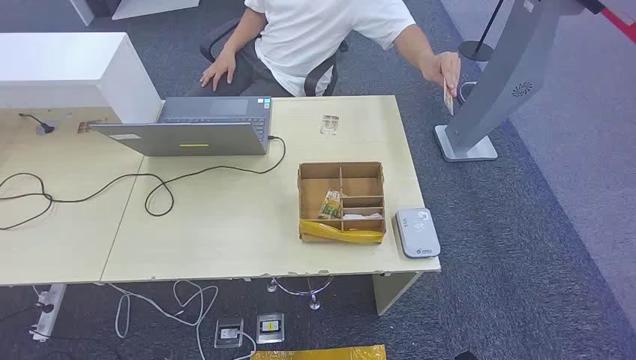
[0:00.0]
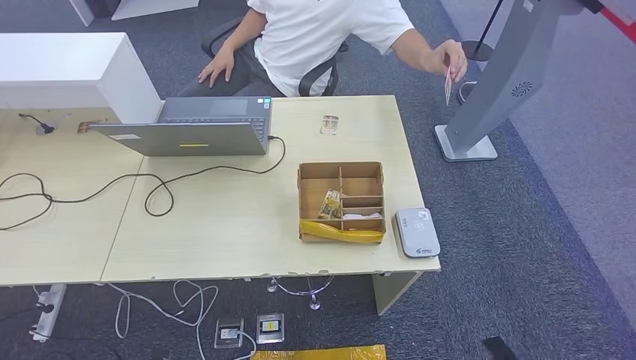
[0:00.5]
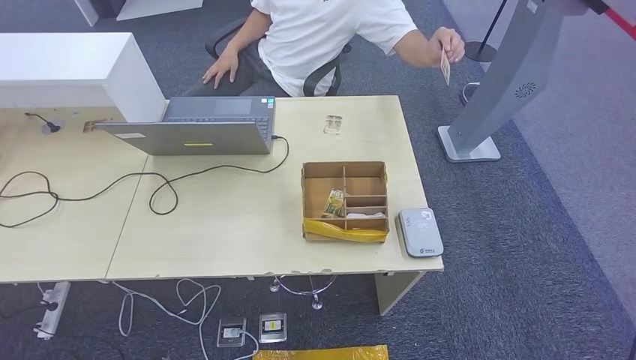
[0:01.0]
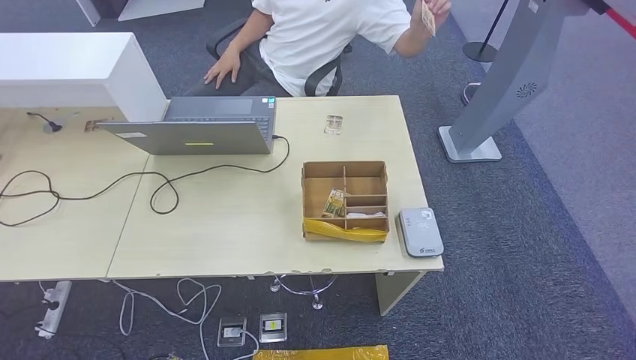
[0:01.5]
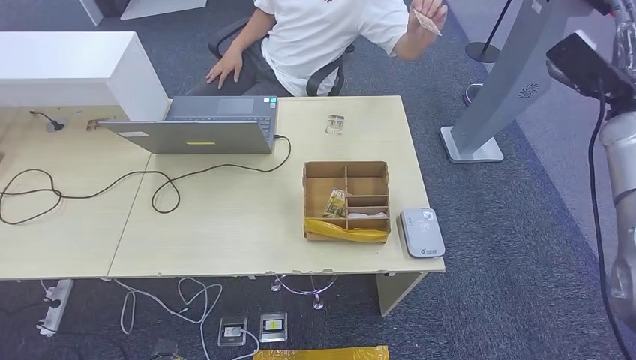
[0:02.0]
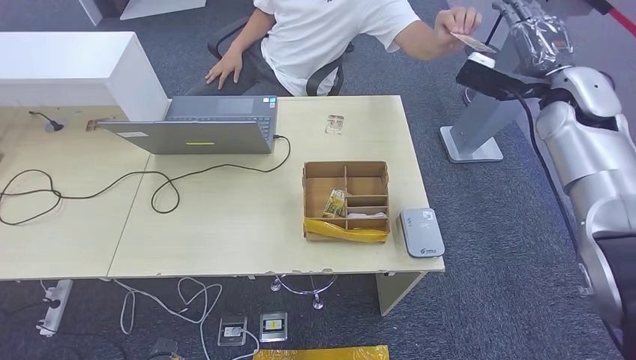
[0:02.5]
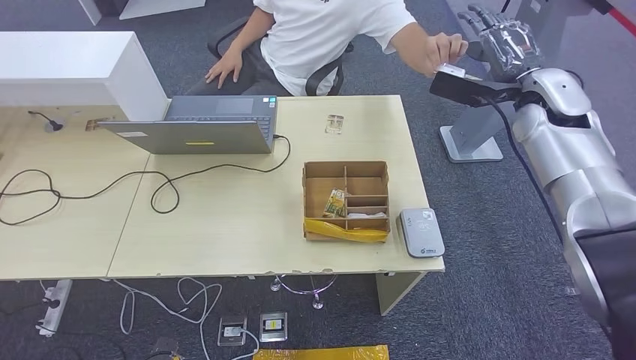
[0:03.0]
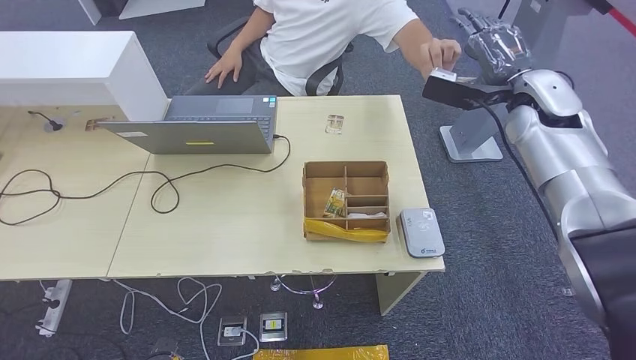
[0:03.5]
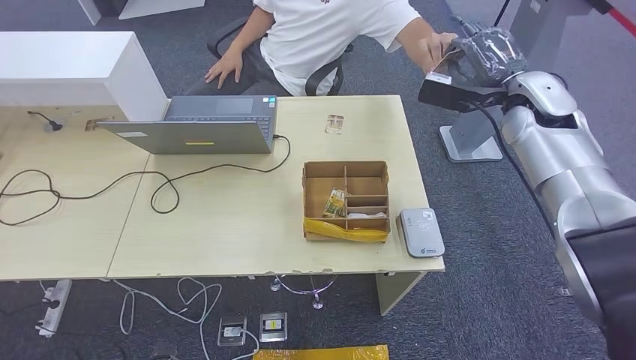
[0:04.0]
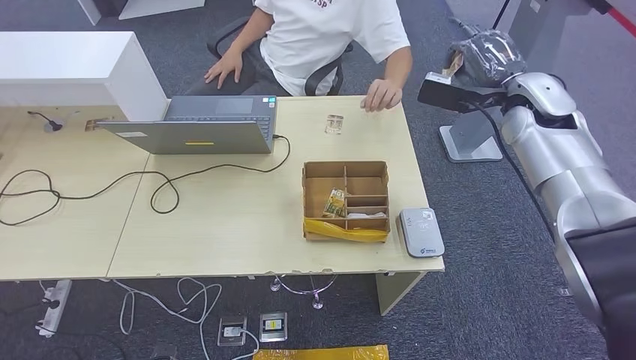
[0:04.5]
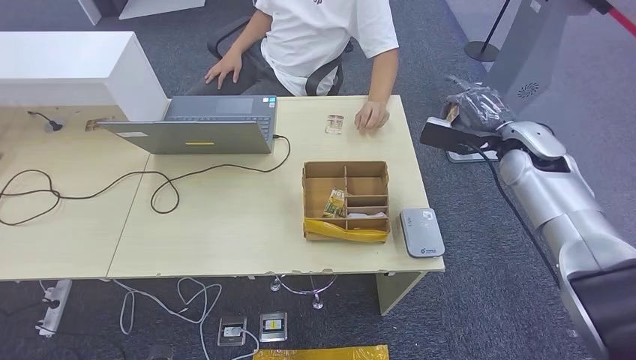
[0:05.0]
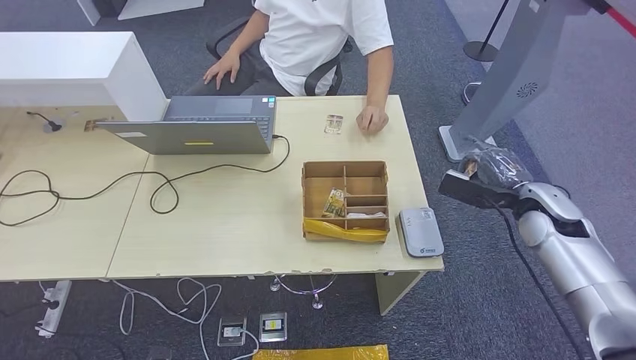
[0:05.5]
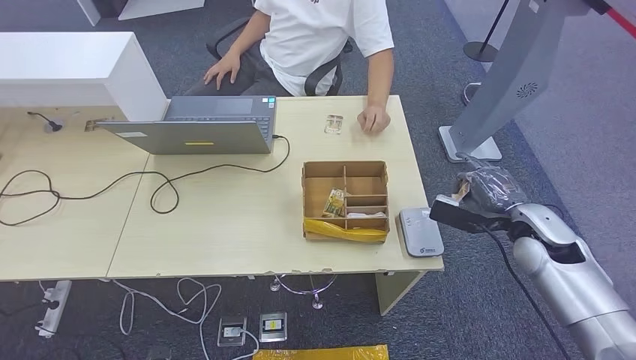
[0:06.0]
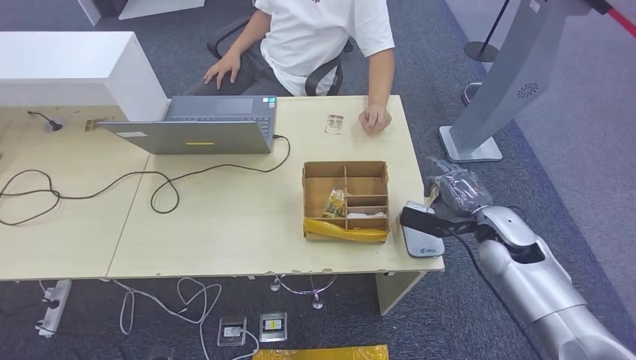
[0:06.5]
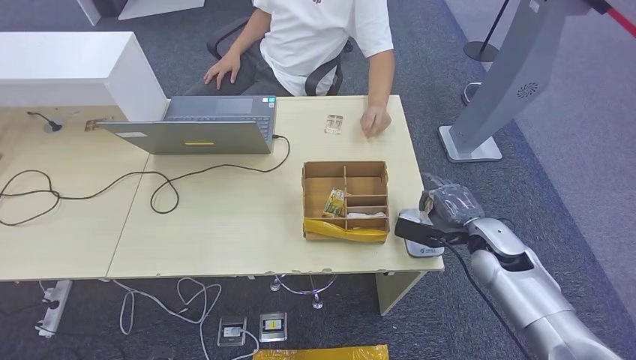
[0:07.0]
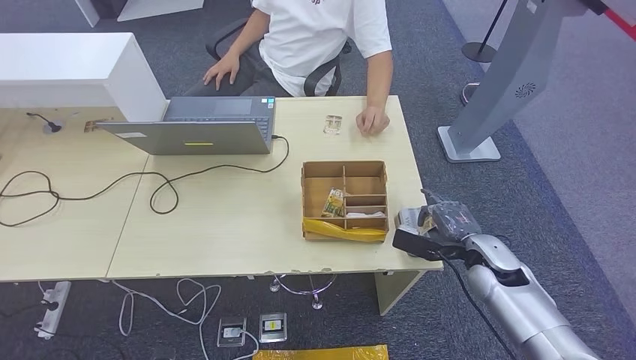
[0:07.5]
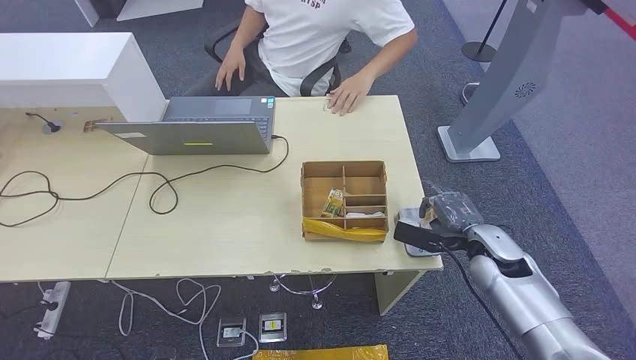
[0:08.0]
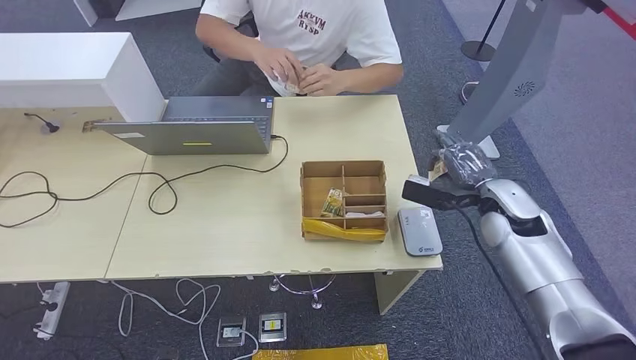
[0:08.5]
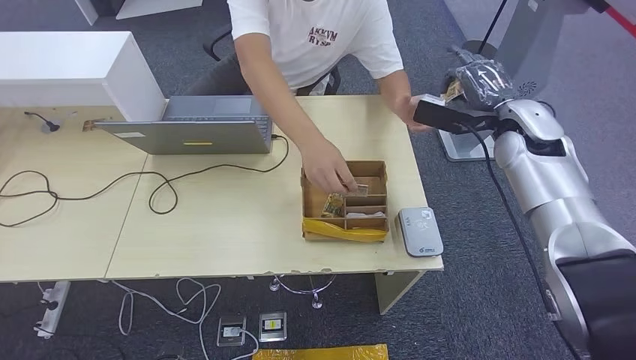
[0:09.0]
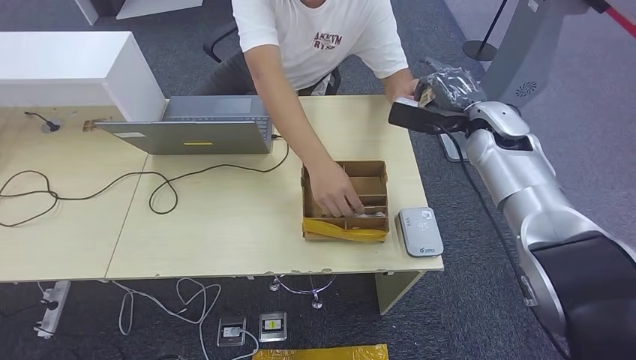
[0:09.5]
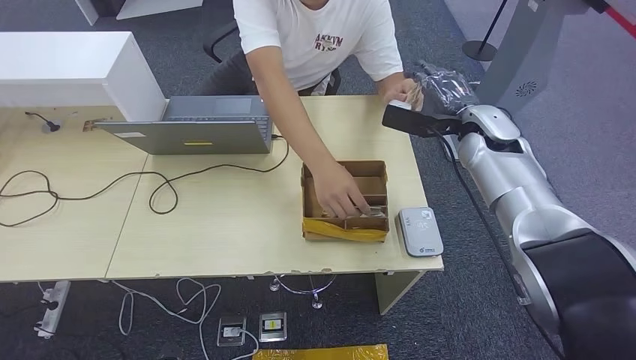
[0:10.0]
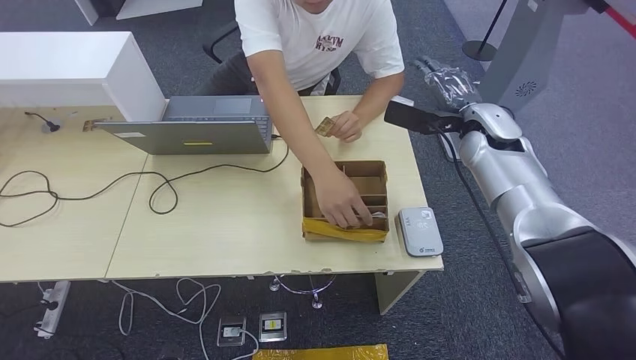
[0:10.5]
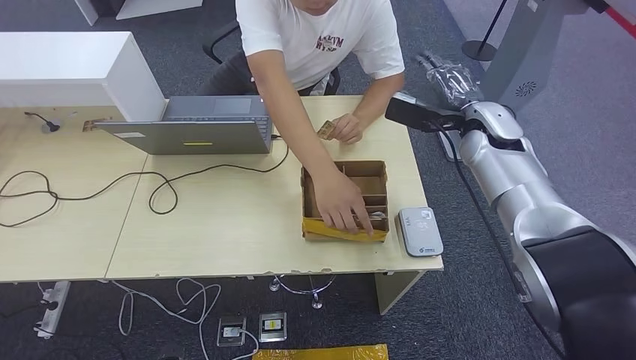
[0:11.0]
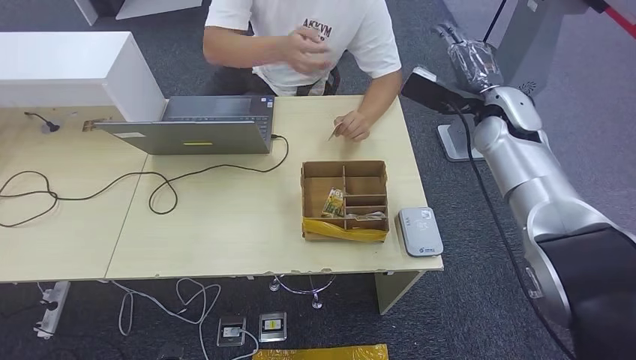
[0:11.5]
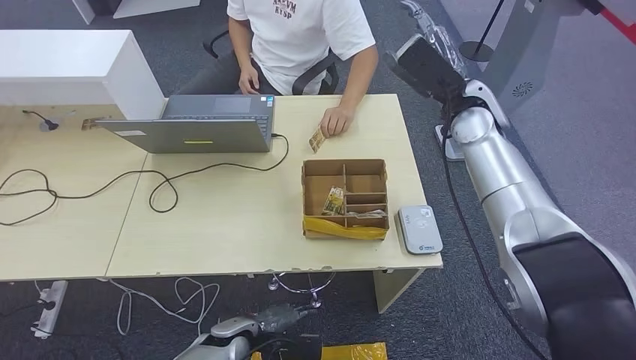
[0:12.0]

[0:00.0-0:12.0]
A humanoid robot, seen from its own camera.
Step, 0:00.0 to 0:04.0: Take the ID card from the person's hand.
Step, 0:04.5 to 0:07.0: Place the ID card on the card reader.
Step, 0:07.5 to 0:09.5: Hand the ID card to the person.
0:02.0 to 0:04.0: The right hand moves to the left, about 15 cm.
0:04.0 to 0:06.0: The right hand is displaced downward and backward by approximately 20 cm.
0:06.0 to 0:08.0: The right hand heads downward and to the left, covering about 10 cm.

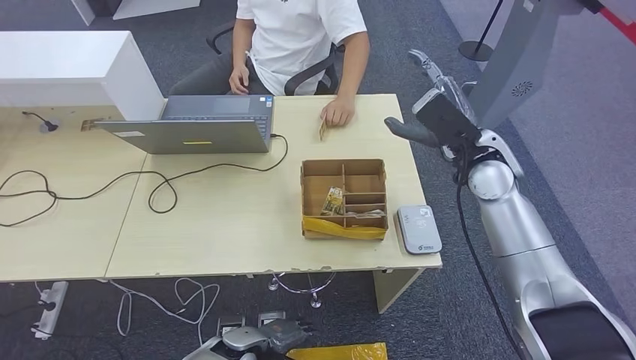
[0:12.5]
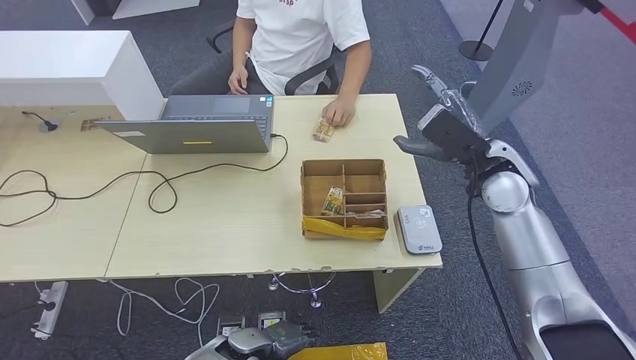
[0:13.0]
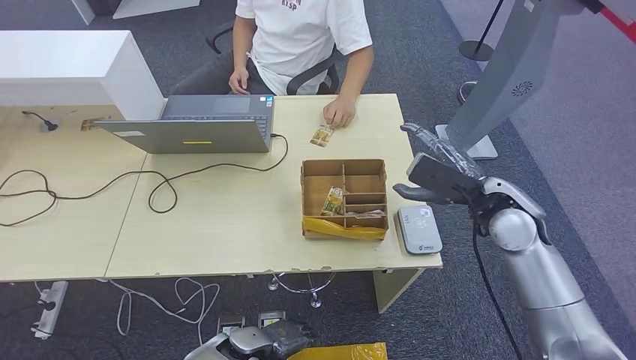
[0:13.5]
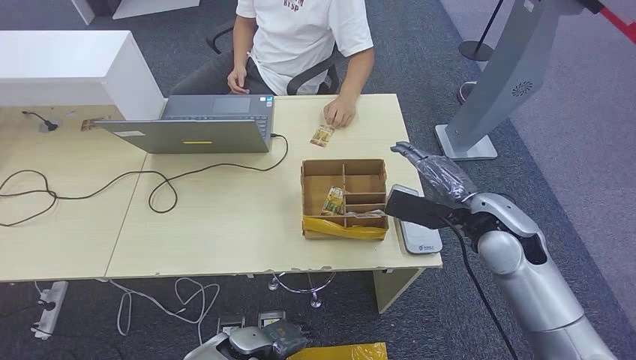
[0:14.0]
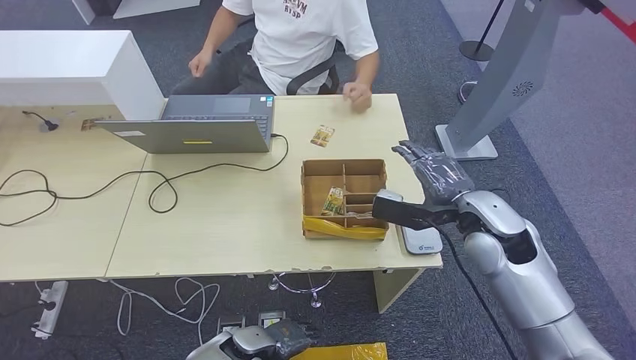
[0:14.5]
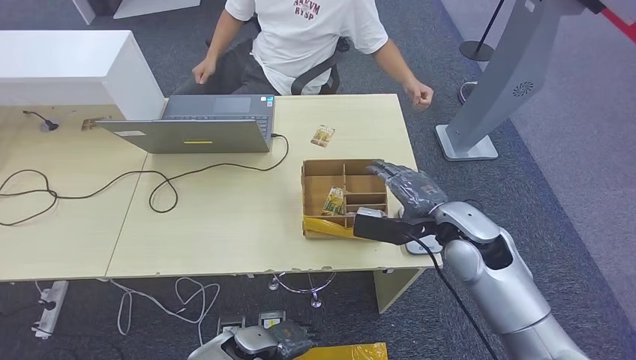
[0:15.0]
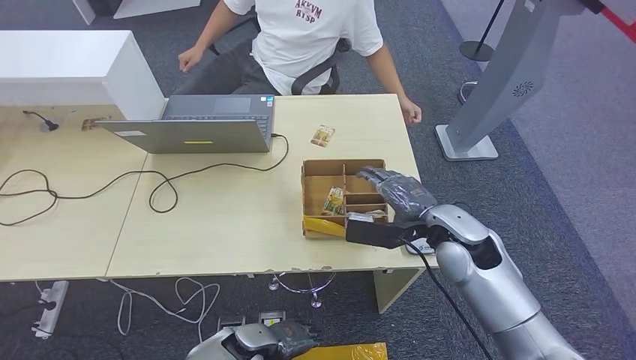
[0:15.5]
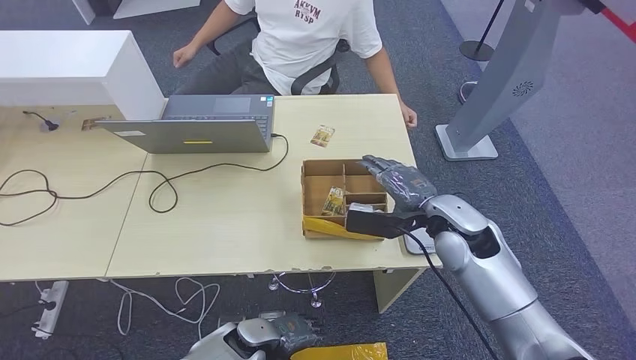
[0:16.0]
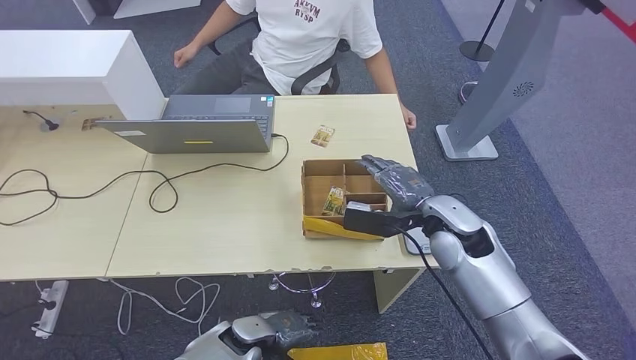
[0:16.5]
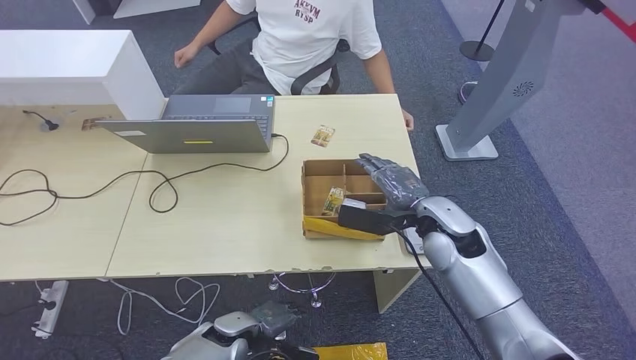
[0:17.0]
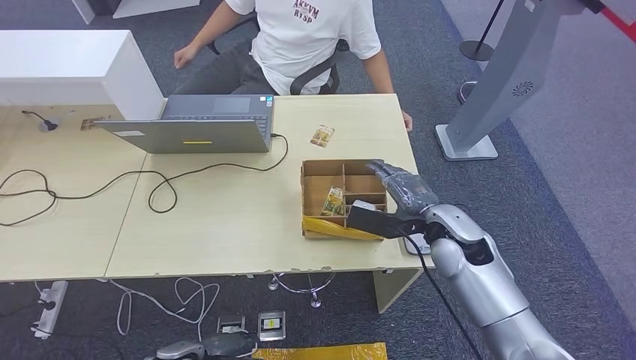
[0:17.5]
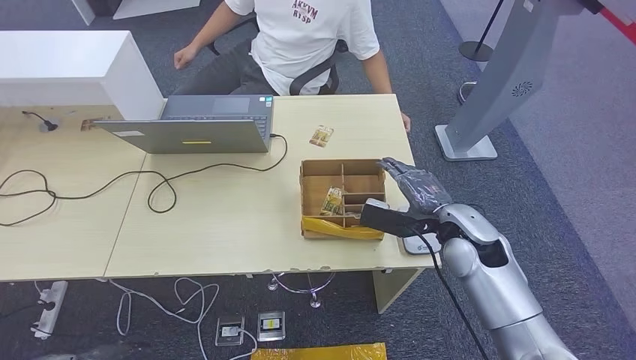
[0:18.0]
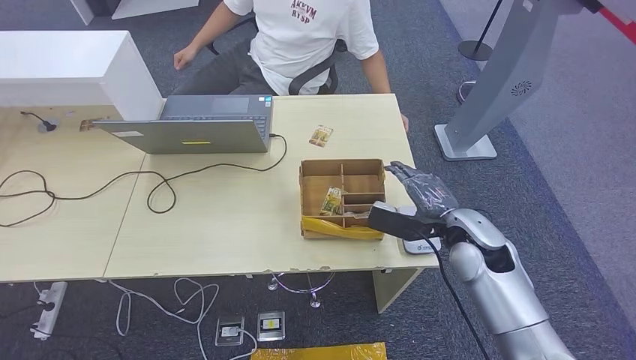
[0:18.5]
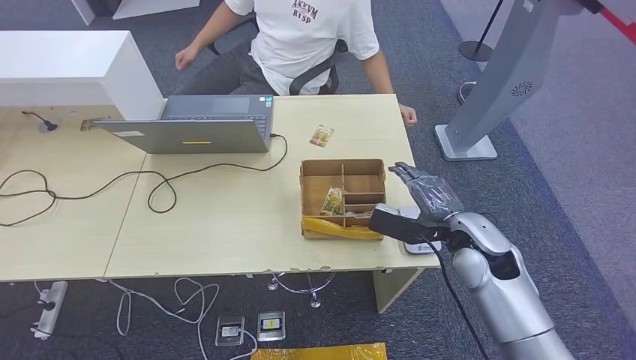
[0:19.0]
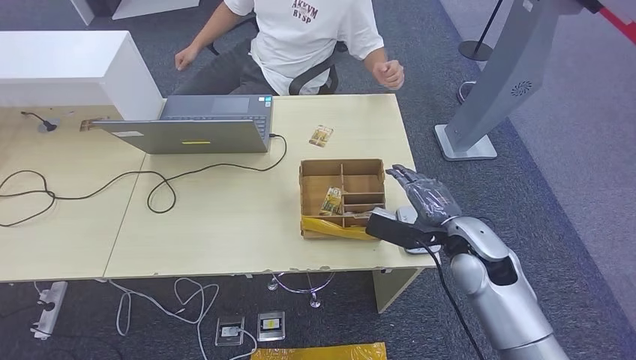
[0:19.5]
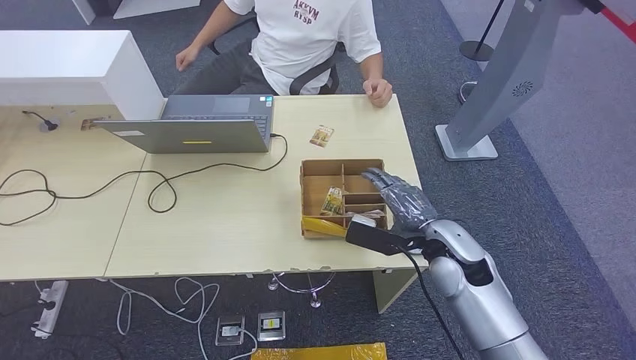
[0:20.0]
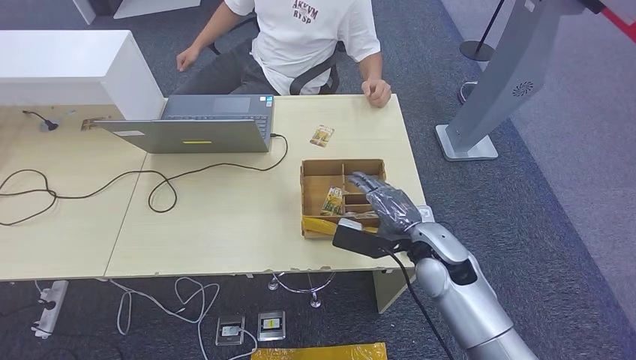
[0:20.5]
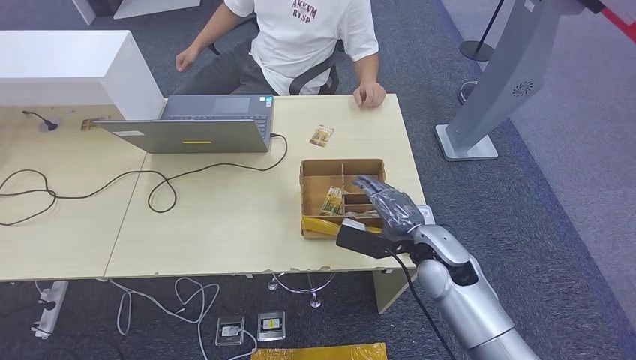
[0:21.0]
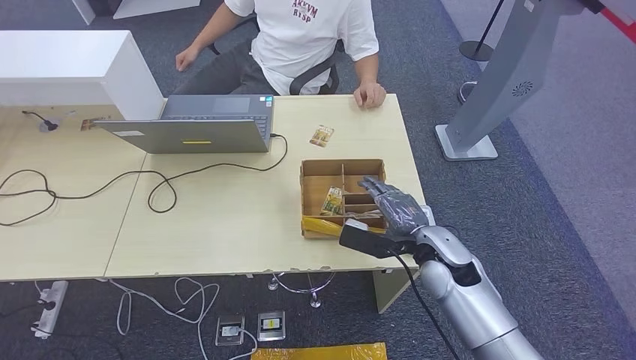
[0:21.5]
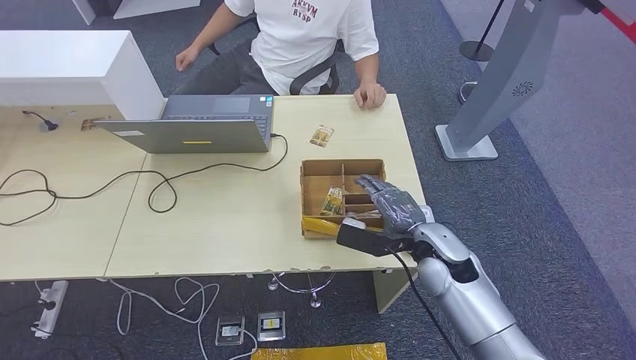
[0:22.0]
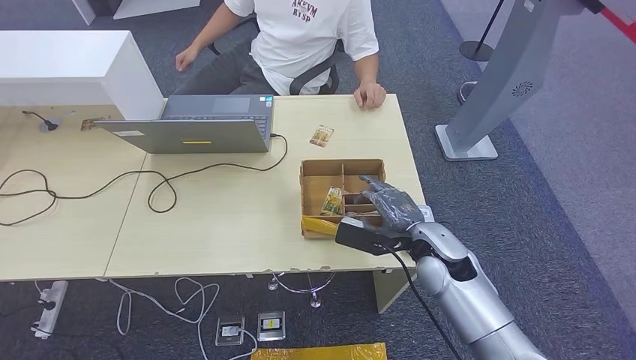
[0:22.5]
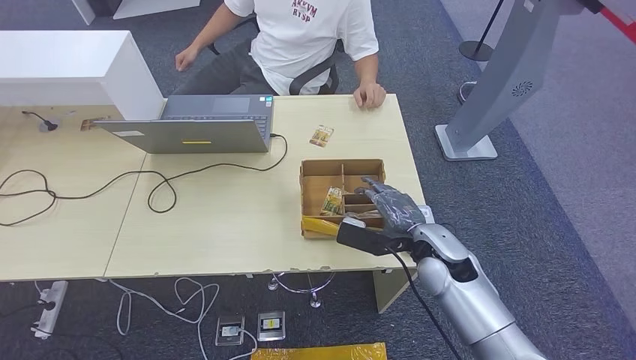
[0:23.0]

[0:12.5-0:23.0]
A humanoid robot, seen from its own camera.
0:12.5 to 0:14.5: The right hand heads backward and downward, covering about 10 cm.
0:14.5 to 0:16.5: The right hand changes place by roughly 5 cm.
0:16.5 to 0:19.0: The left hand travels to the left and backward by approximately 40 cm.
0:19.0 to 0:21.0: The left hand is displaced to the right by about 15 cm. The right hand moves to the left, approximately 5 cm.
0:21.0 to 0:23.0: The hands stay close to where they were, moving slightly.
